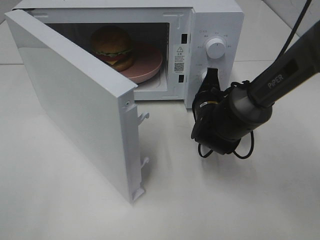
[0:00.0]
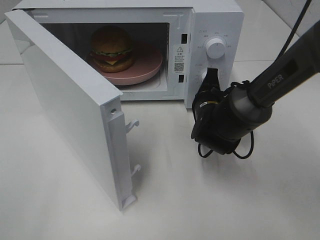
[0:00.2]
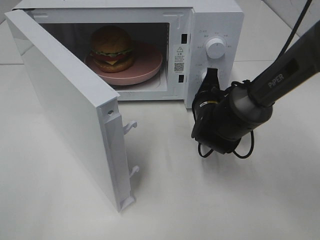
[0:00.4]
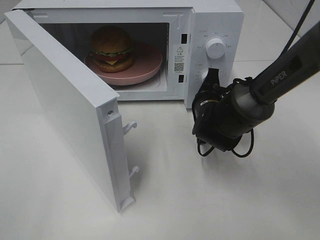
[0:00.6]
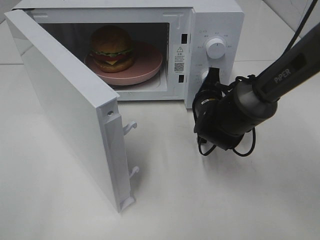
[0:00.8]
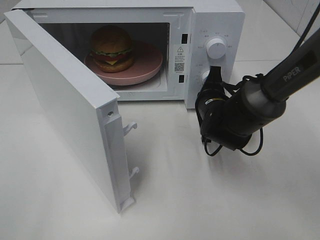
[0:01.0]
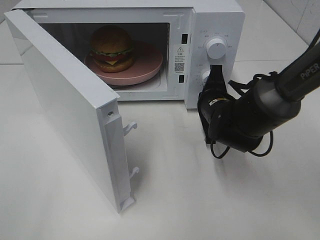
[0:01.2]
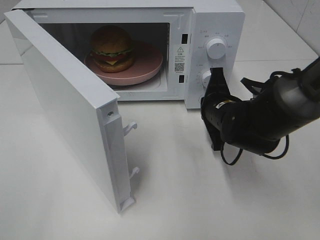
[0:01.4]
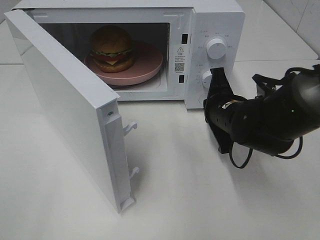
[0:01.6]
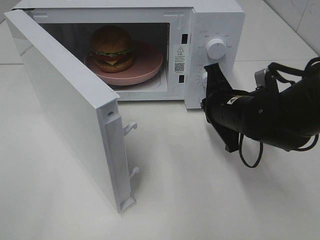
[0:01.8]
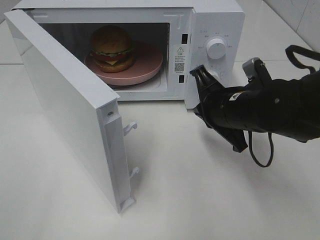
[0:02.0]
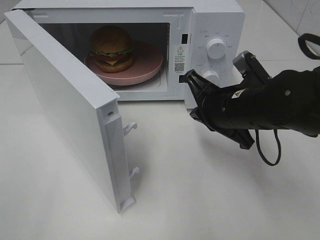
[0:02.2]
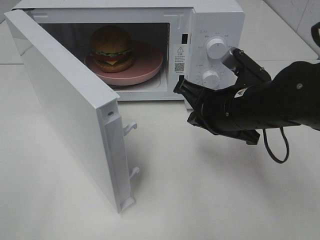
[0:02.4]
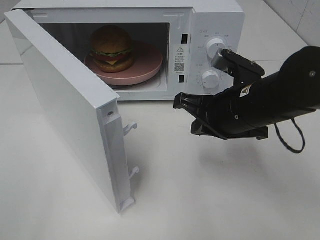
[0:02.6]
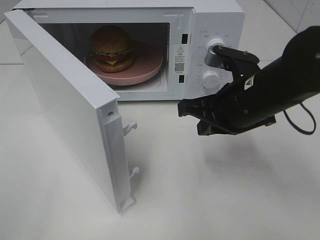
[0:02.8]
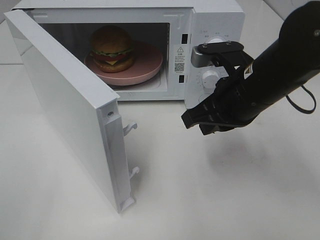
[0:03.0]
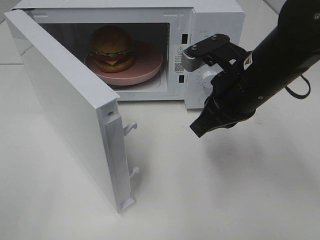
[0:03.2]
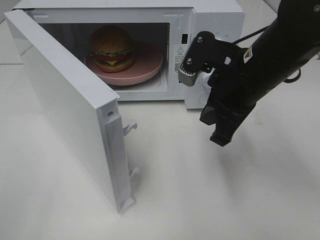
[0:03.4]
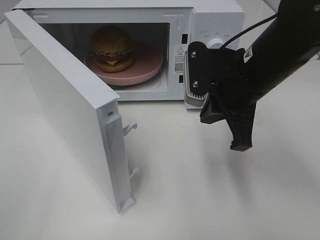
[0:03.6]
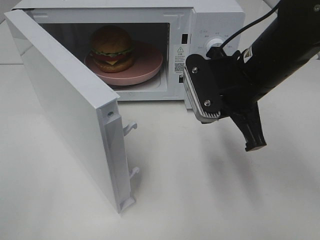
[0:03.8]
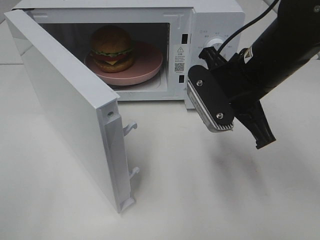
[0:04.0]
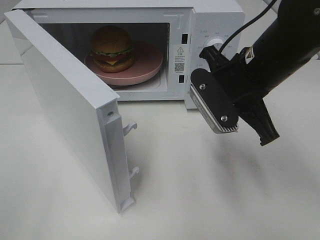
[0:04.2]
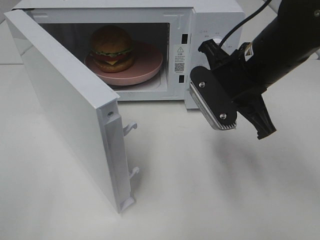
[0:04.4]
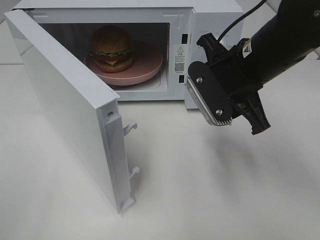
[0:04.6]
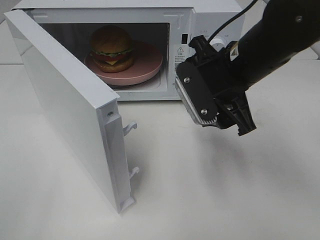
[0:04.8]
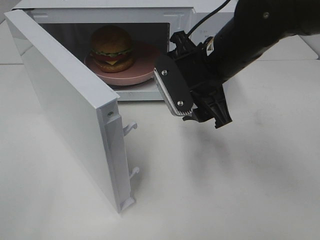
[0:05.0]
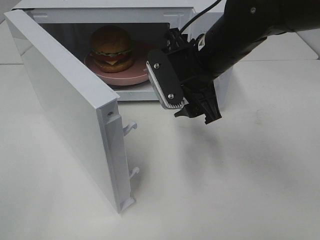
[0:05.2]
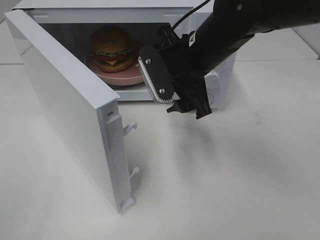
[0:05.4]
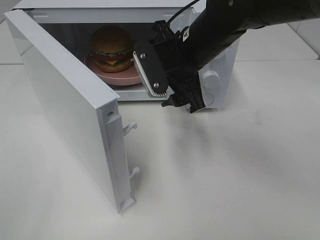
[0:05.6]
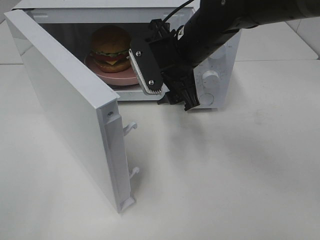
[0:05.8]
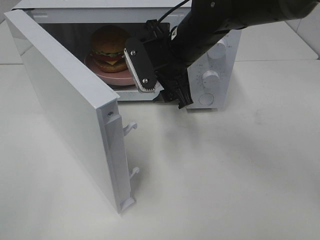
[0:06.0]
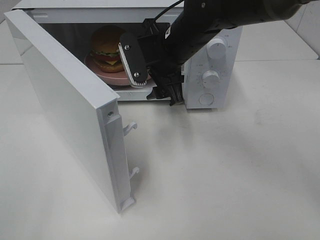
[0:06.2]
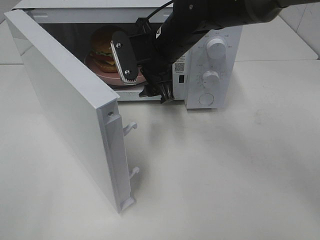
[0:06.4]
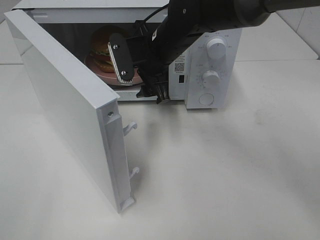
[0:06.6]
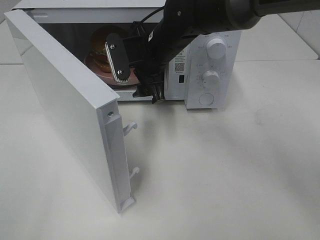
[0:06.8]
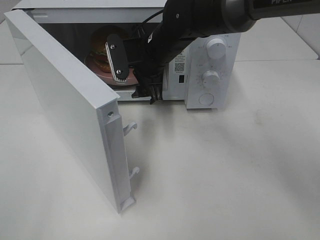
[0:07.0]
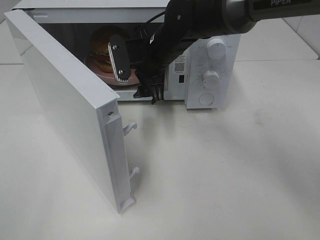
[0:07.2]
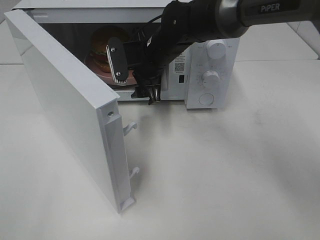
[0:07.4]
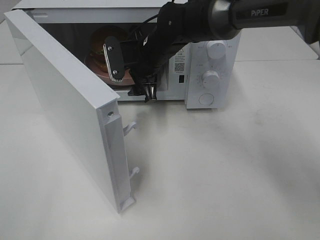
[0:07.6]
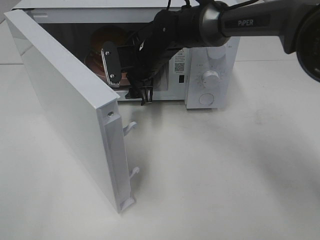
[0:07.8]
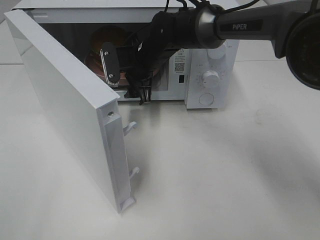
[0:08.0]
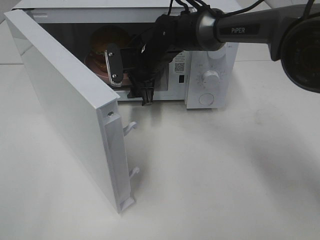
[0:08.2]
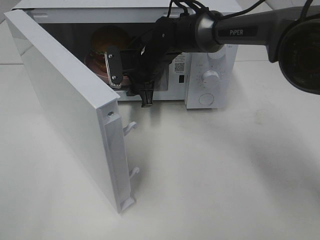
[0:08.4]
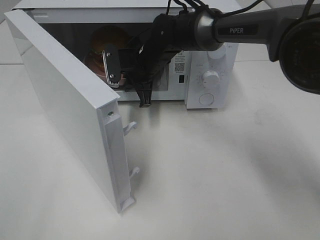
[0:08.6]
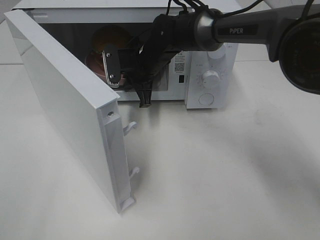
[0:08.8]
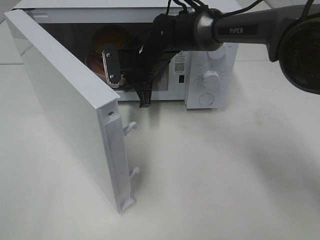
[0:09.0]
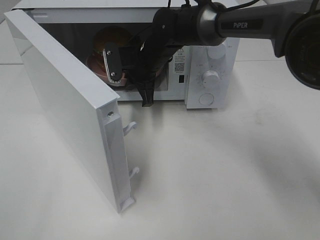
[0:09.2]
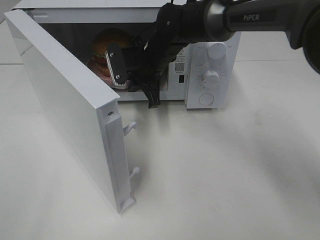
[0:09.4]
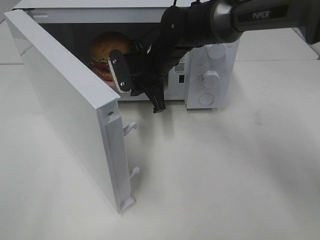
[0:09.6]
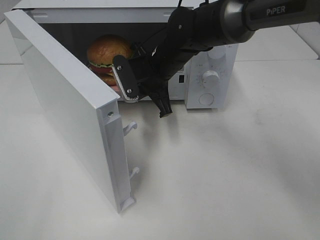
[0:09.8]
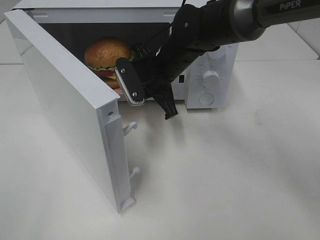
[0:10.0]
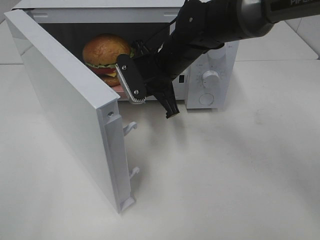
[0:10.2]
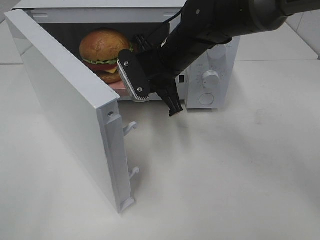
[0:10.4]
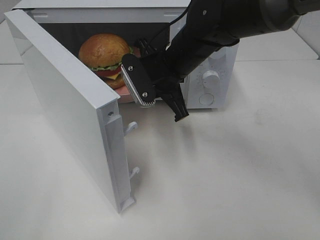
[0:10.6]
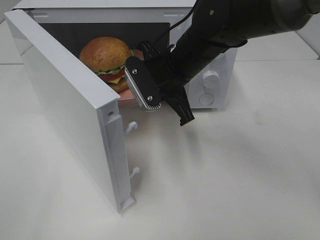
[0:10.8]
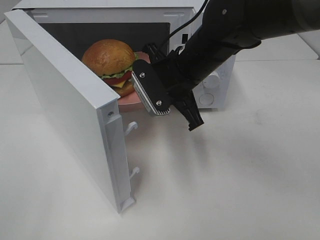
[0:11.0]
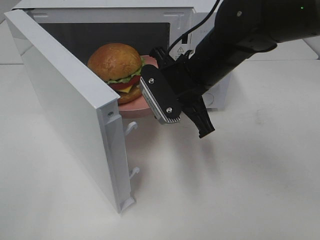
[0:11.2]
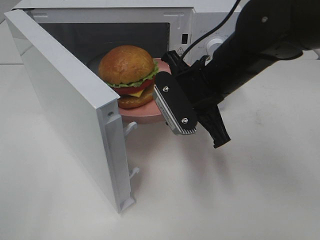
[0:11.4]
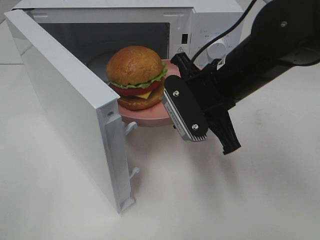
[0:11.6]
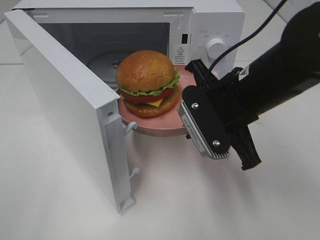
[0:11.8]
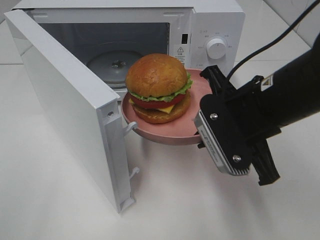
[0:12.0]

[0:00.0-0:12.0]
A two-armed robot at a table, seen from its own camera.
Task of the whole recording: Heat the burger.
Step, 0:01.4 to 0:08.8: Right hand: grab the plate with the hamburger.
0:00.0 to 0:01.6: The right gripper travels backward by approximately 5 cm.
0:01.6 to 0:03.0: The right gripper travels upward by roughly 10 cm.
0:04.4 to 0:06.0: The right gripper heads to the left and forward, covering approximately 10 cm, and opens.
0:06.0 to 0:07.6: The right gripper is displaced forward by roughly 5 cm.
0:07.6 to 0:09.0: The right gripper closes.
0:09.0 to 0:10.4: The right gripper is displaced backward by approximately 10 cm.
0:10.4 to 0:12.0: The right gripper is displaced backward and to the right by approximately 20 cm.

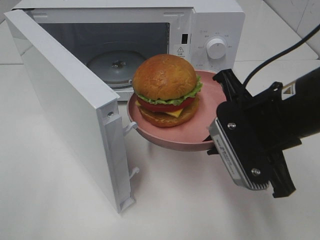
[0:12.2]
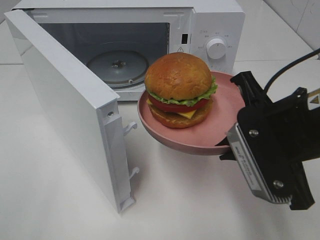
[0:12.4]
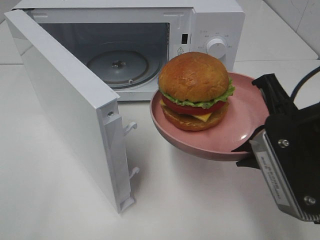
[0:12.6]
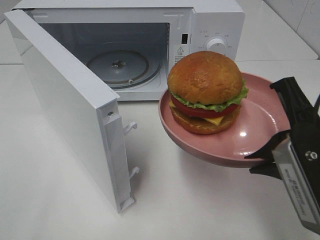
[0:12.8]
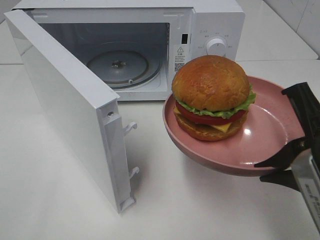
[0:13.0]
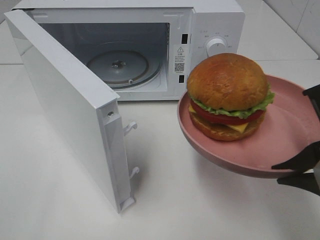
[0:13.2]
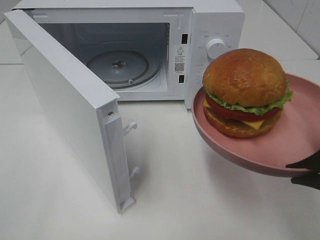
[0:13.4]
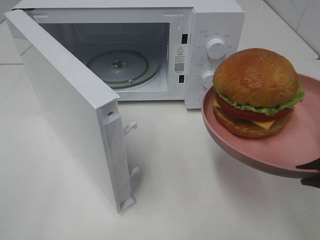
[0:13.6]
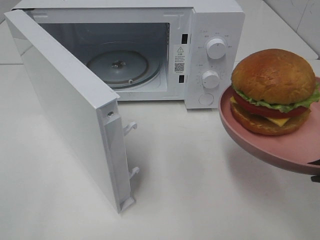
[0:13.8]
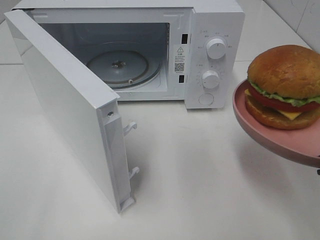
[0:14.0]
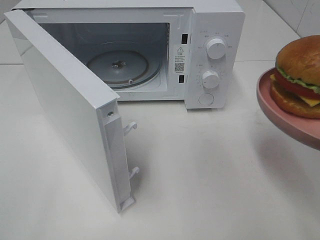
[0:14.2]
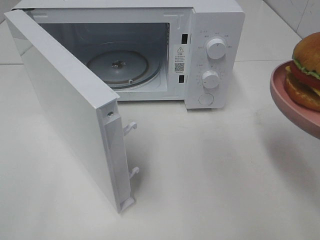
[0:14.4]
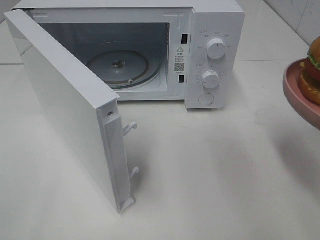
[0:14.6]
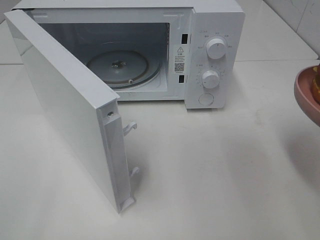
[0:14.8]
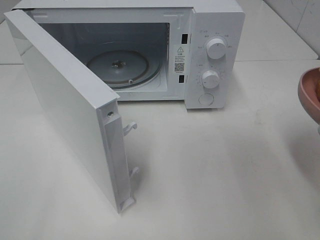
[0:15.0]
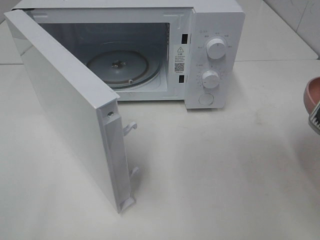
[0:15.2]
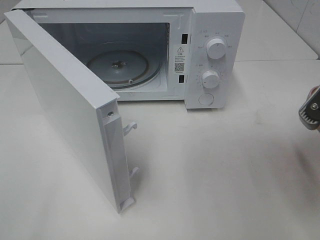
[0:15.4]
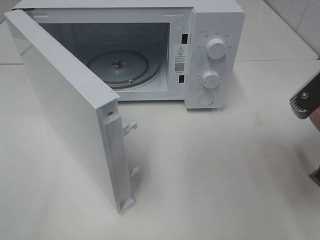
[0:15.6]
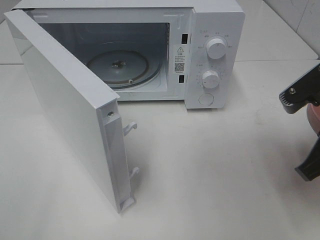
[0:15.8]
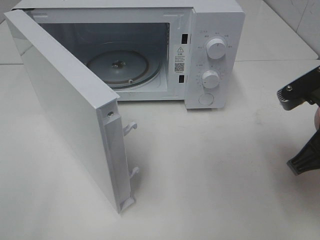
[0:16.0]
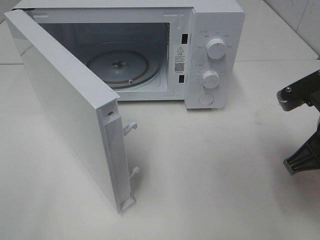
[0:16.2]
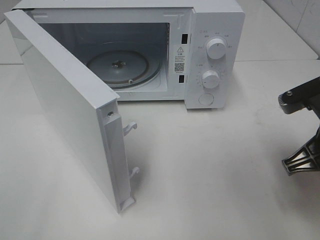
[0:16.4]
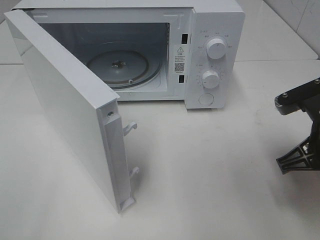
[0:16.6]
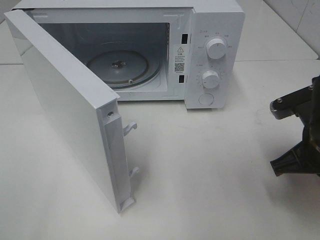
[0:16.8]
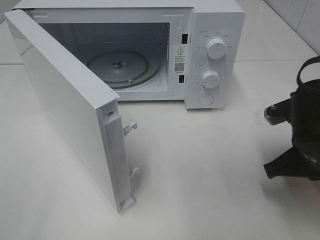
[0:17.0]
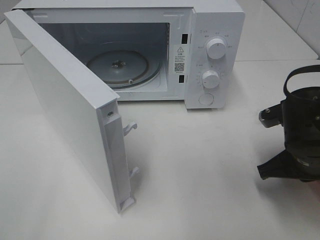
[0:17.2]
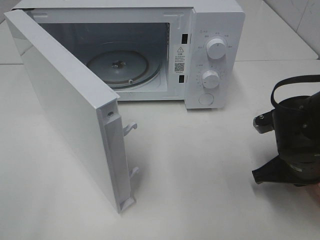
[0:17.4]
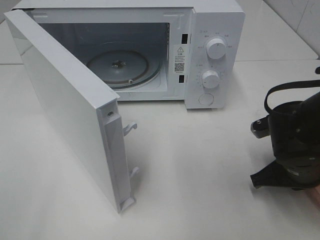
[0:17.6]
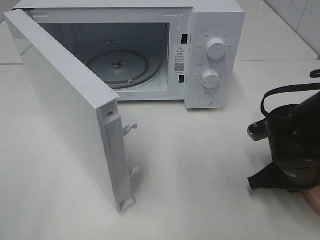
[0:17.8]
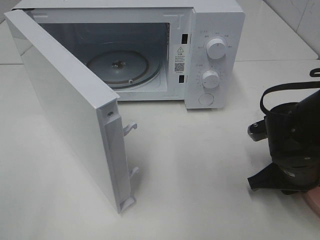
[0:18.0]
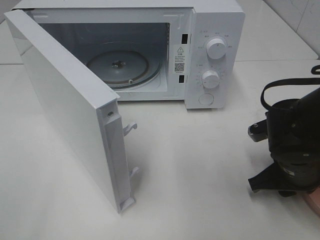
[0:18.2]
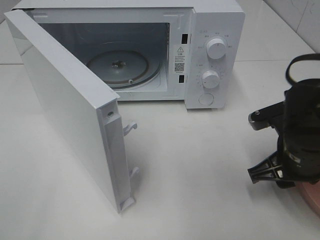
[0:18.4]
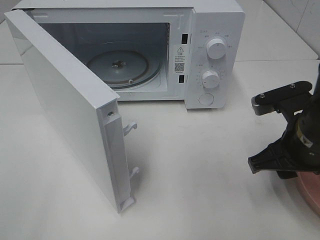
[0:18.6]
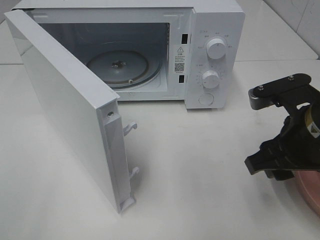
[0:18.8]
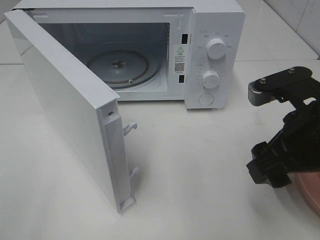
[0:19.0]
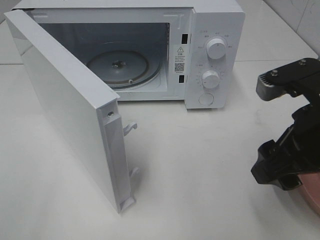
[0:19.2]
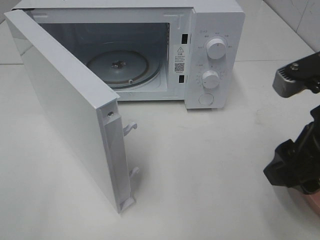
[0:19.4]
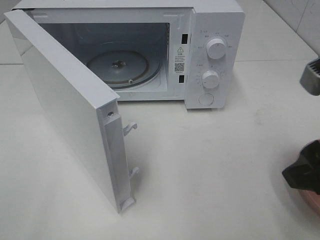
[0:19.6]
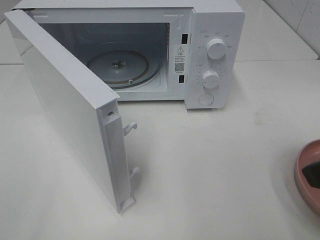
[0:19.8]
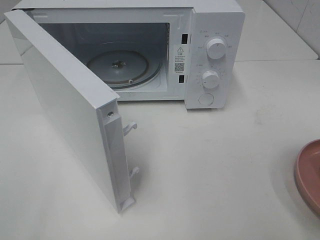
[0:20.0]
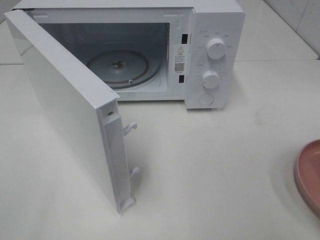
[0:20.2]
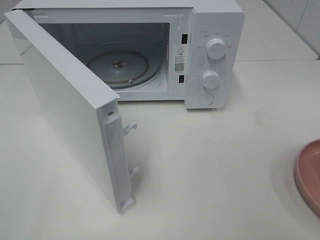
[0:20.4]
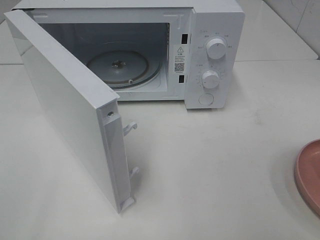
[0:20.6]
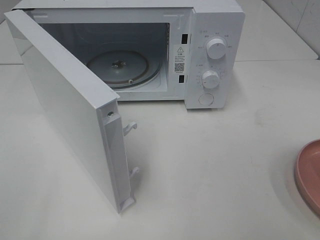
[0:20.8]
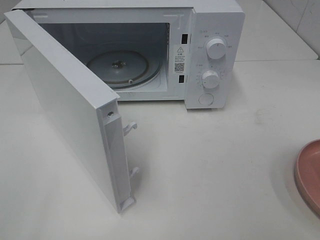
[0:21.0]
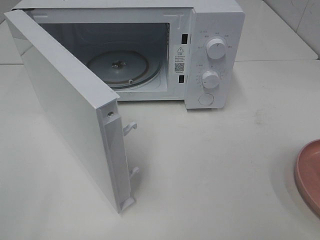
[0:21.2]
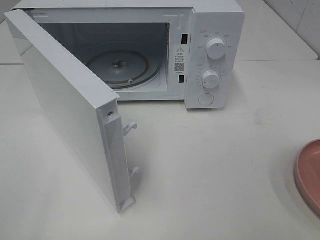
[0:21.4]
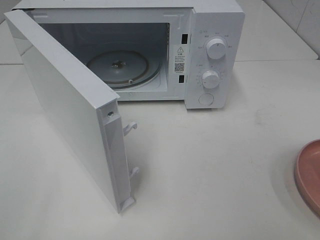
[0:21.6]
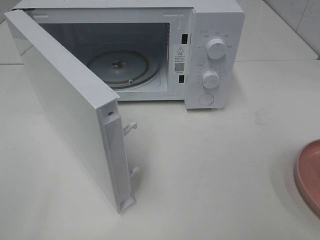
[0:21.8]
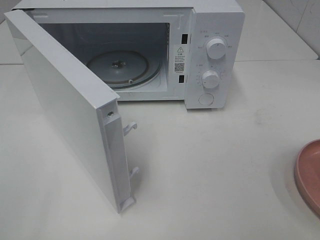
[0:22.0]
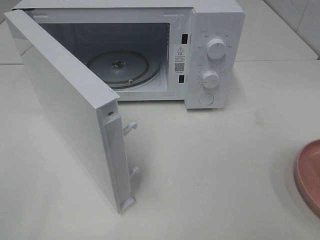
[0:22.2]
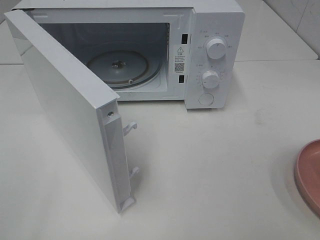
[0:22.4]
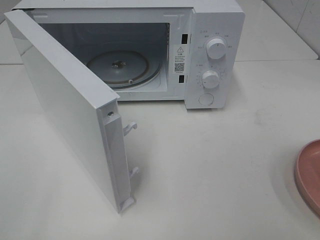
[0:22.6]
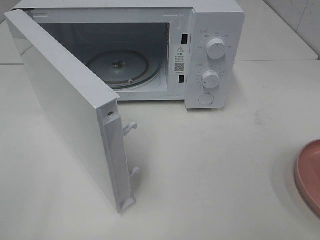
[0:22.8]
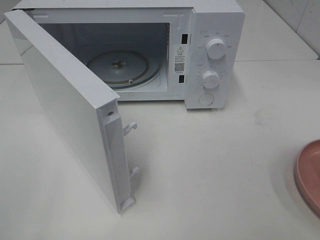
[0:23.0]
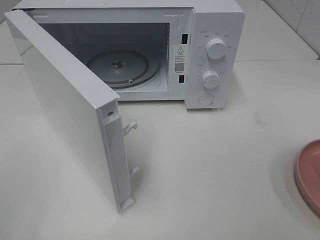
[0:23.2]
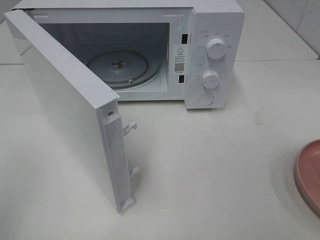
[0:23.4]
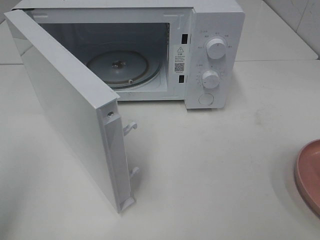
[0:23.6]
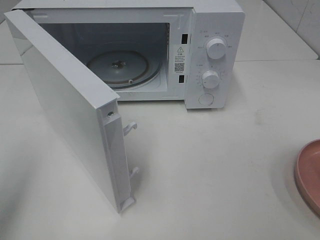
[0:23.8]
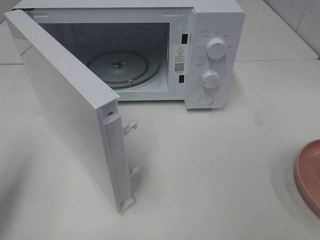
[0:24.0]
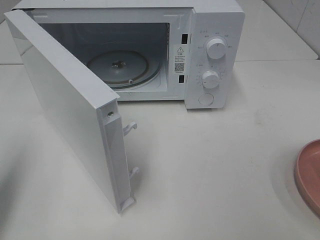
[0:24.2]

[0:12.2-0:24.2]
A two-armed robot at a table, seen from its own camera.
Task of the whole recording: Heat the burger.
Step, 0:12.2 to 0:18.0: Right hand: place the plate on the table.
0:12.2 to 0:13.8: The right gripper goes some 10 cm backward and to the right.
0:15.2 to 0:16.6: The right gripper is displaced downward and forward by approximately 10 cm.
0:16.6 to 0:18.2: The right gripper moves downward, some 5 cm, and opens.
0:18.2 to 0:19.8: The right gripper goes some 20 cm upward and backward.
0:19.8 to 0:21.2: The right gripper shifts about 10 cm backward and to the right.
0:21.2 to 0:22.6: Neither gripper changes place.
0:22.6 to 0:24.2: The left gripper goes some 15 cm forward, and closes.
